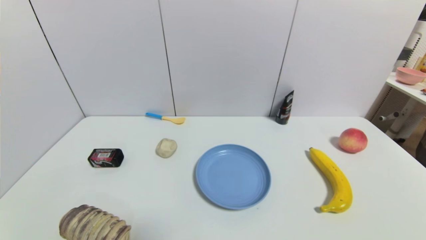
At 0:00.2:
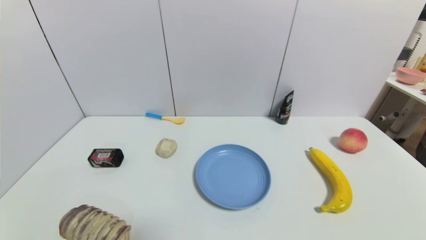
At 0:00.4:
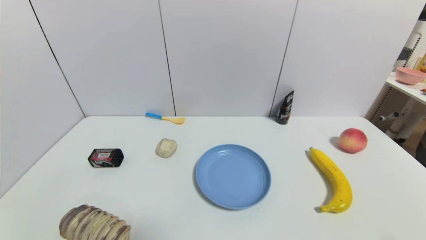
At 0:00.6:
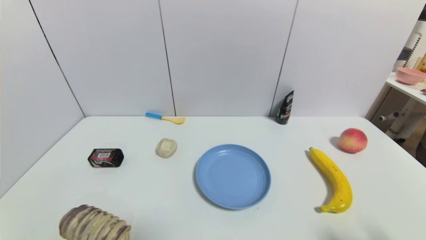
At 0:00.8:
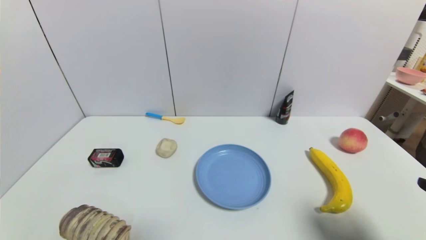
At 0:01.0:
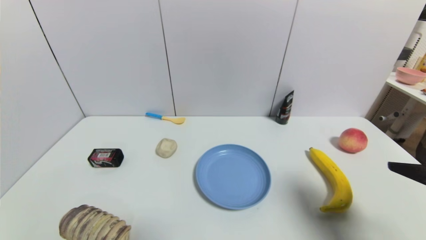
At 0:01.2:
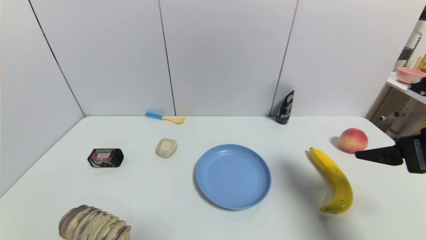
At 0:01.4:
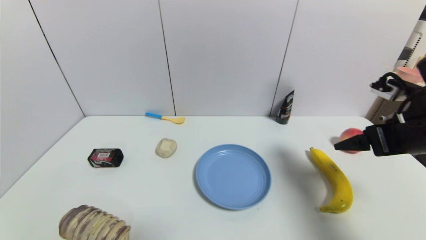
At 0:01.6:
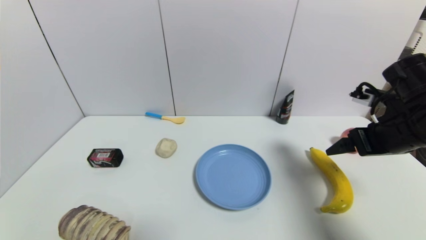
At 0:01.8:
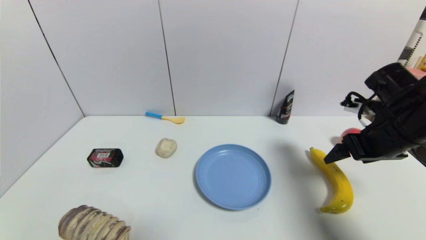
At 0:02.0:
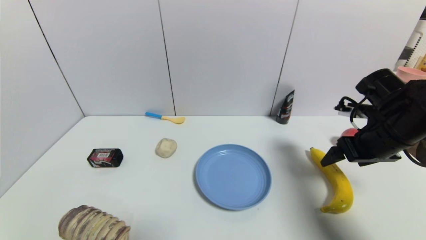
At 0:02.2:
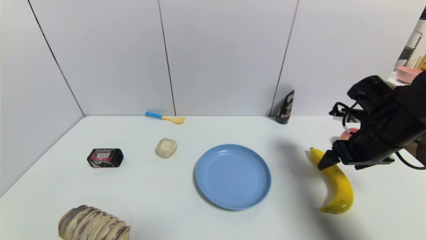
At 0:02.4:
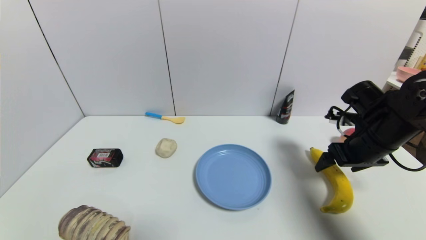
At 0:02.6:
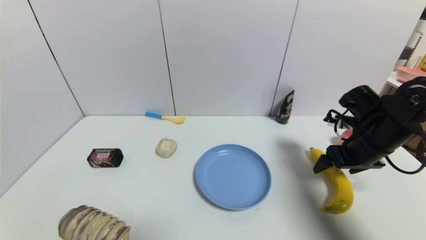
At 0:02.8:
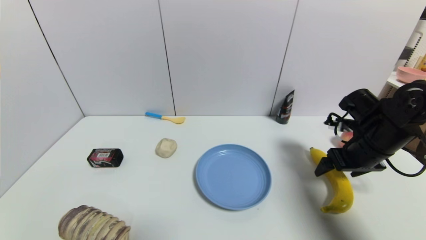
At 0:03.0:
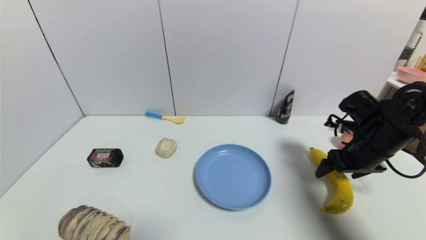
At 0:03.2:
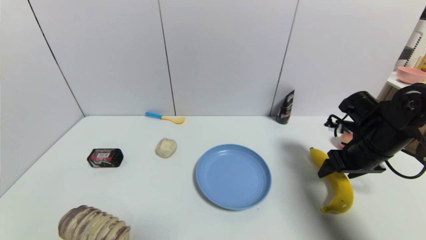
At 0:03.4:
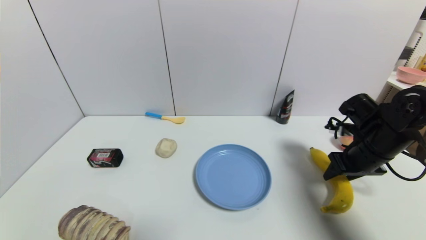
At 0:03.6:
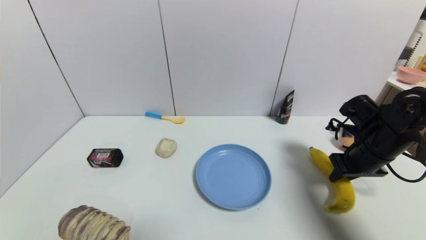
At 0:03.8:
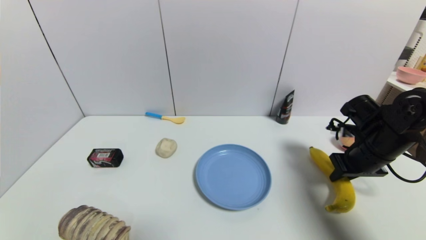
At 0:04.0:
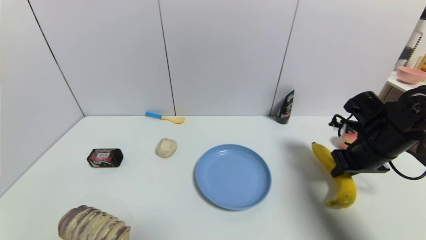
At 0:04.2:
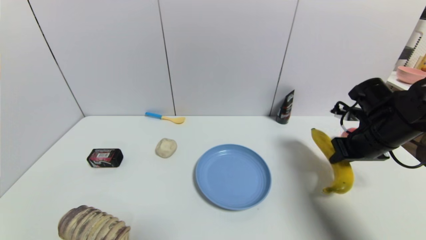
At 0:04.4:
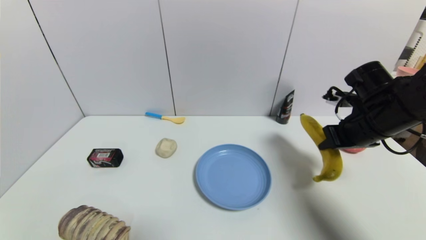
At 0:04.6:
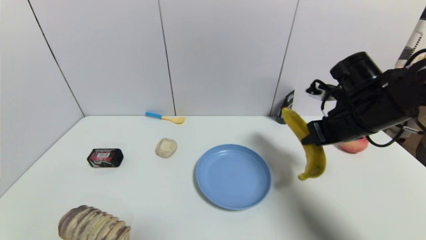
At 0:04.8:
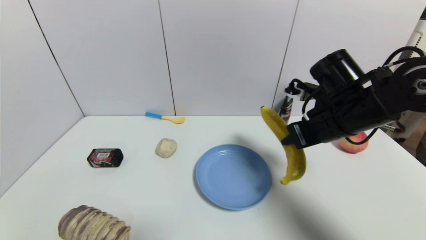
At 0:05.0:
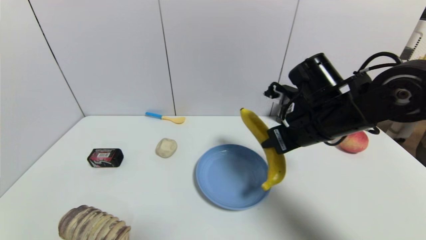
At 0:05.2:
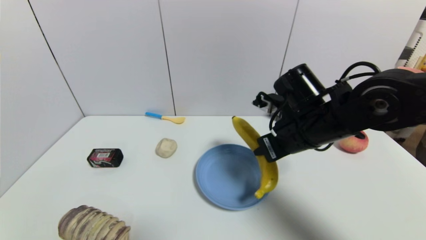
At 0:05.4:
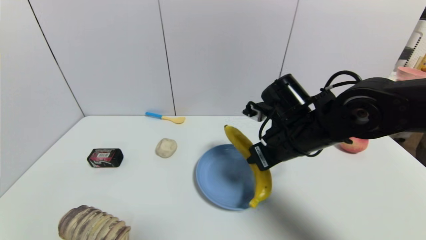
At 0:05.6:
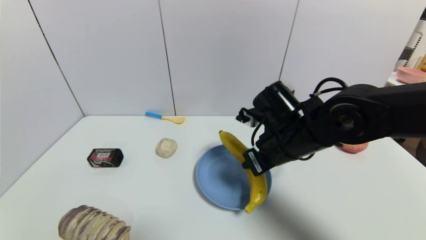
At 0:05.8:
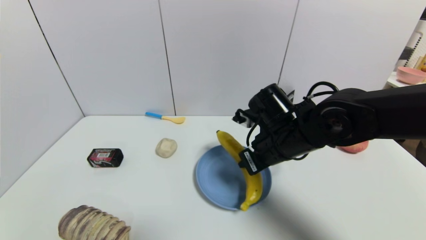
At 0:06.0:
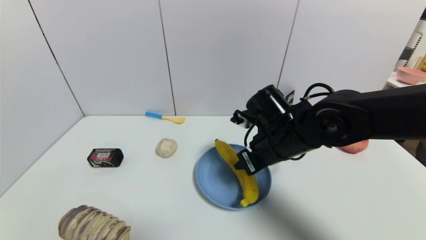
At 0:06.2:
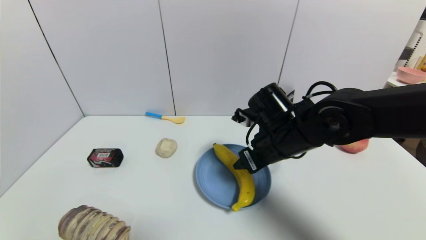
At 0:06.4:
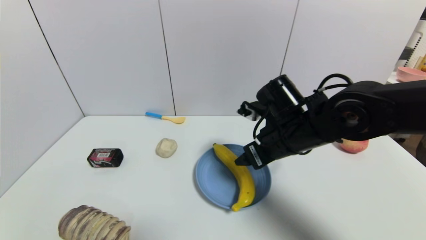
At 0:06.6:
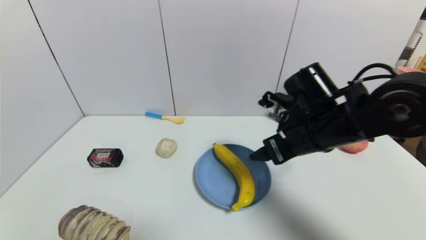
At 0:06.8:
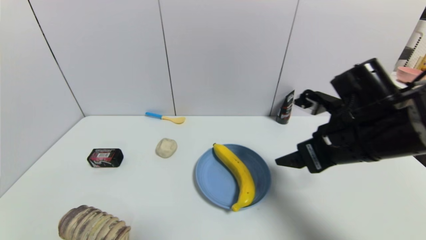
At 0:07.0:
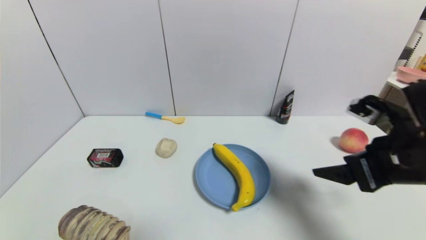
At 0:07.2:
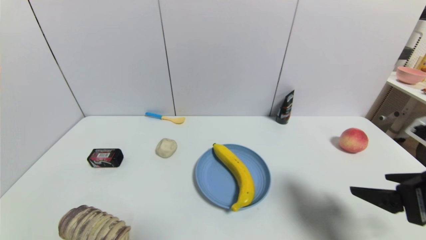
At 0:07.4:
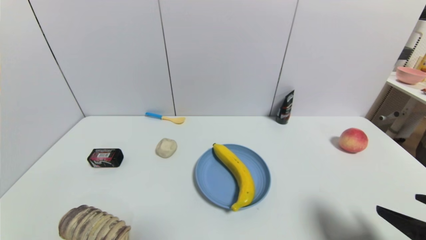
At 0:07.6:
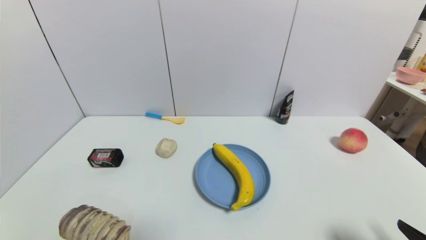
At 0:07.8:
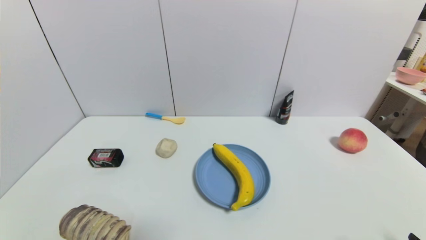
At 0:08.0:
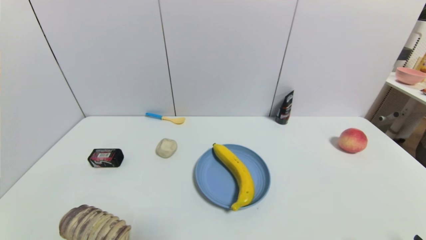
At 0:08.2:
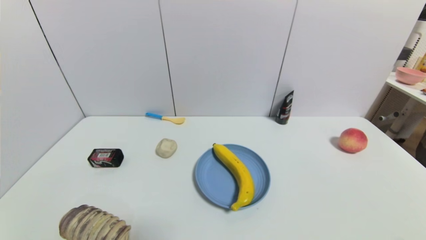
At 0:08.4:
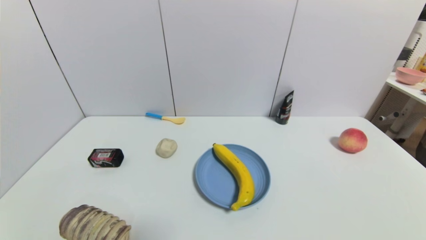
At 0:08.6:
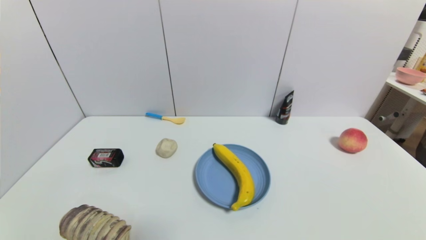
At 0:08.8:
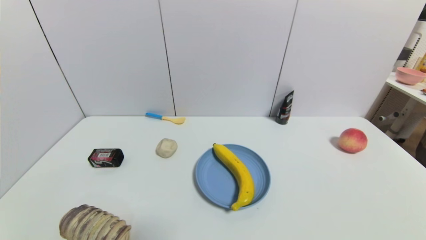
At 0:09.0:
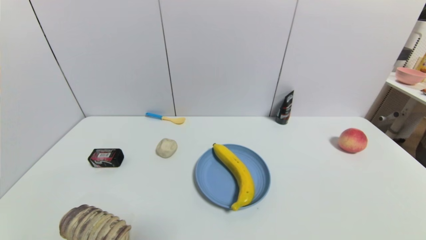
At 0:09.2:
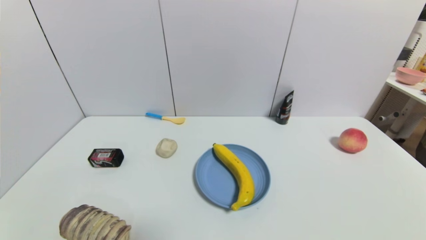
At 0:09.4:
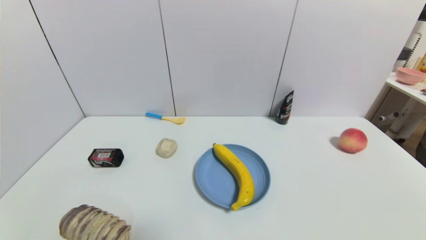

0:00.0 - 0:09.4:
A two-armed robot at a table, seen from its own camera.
Task of the whole recording: use a gripper to pick the target object and place on the blue plate.
Step, 0:00.0 - 0:03.6: Grasp the banana with the right gripper.
Step, 0:03.8 - 0:06.8: Place the banana on the blue plate with the right gripper.
0:00.0 - 0:01.6: The right gripper heads forward and upward, covering roughly 30 cm.
0:01.6 - 0:03.2: The right gripper moves downward, some 5 cm.
0:03.2 - 0:04.8: The right gripper is displaced to the left and upward by approximately 15 cm, and closes its fingers.
0:04.8 - 0:06.2: The right gripper shifts approximately 10 cm to the left and downward, and opens.
0:06.2 - 0:07.8: The right gripper heads backward and to the right, covering about 35 cm, and opens.
